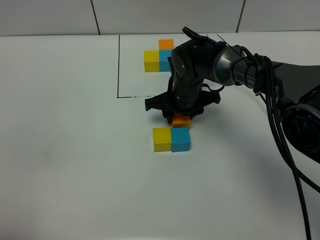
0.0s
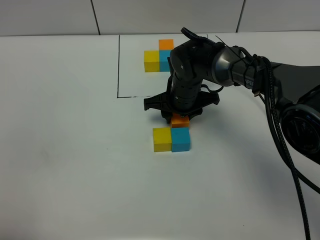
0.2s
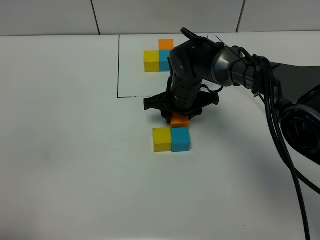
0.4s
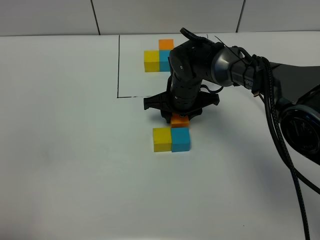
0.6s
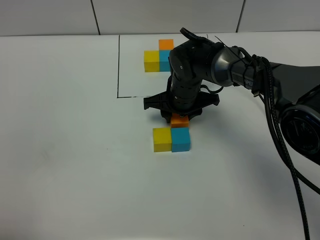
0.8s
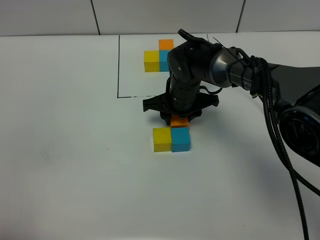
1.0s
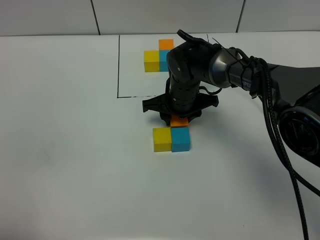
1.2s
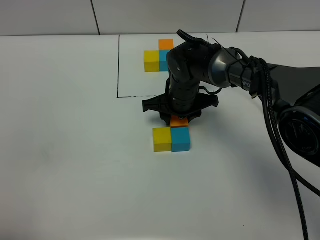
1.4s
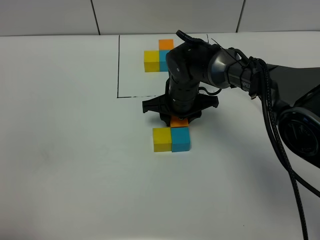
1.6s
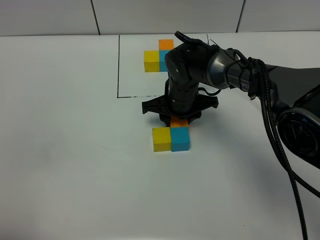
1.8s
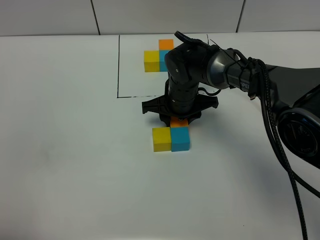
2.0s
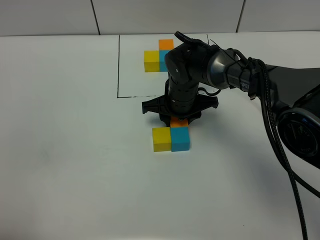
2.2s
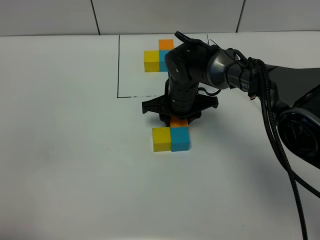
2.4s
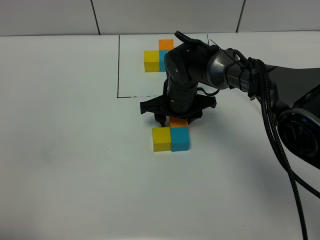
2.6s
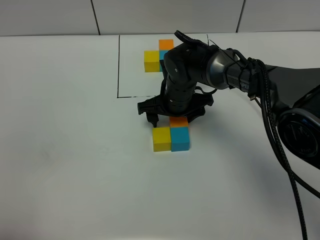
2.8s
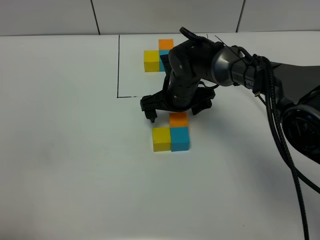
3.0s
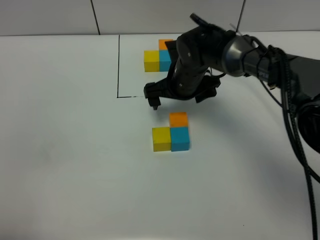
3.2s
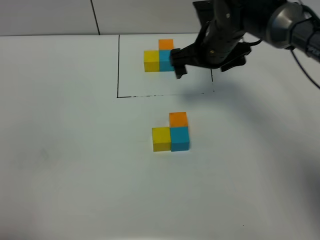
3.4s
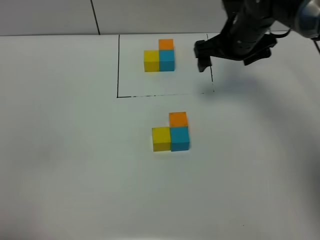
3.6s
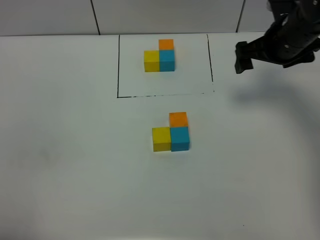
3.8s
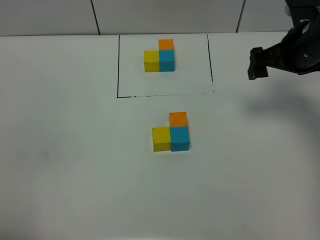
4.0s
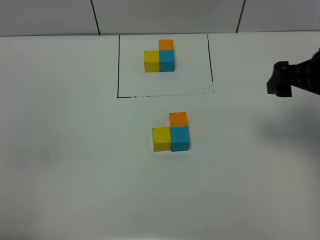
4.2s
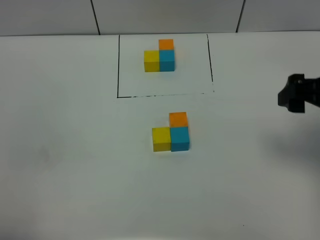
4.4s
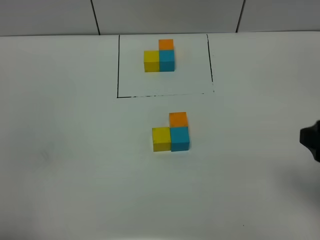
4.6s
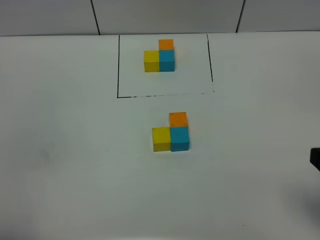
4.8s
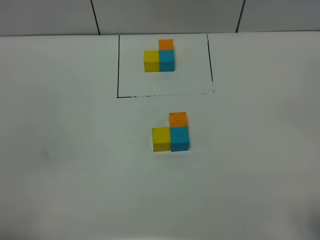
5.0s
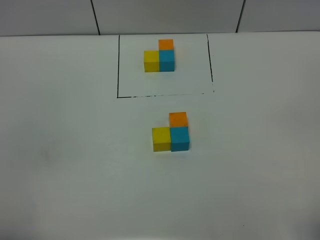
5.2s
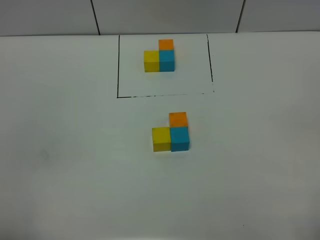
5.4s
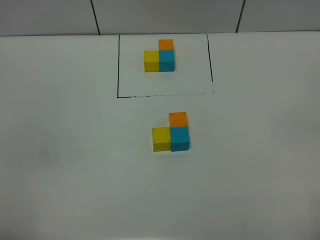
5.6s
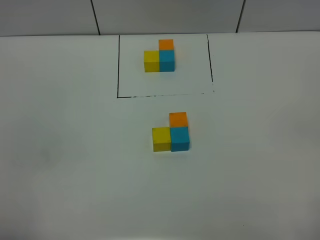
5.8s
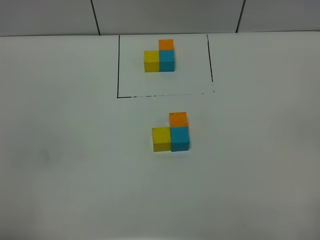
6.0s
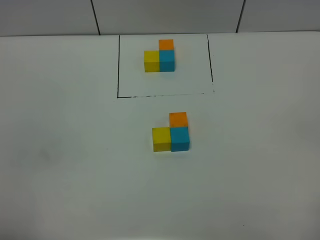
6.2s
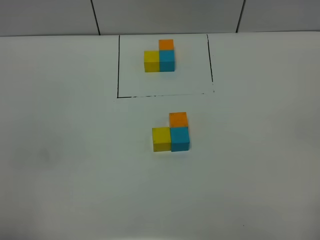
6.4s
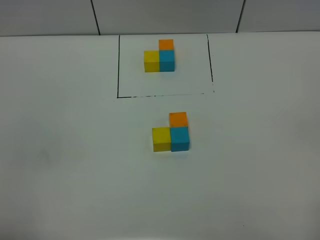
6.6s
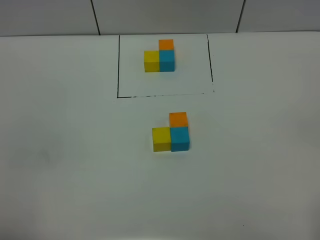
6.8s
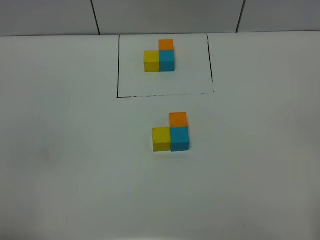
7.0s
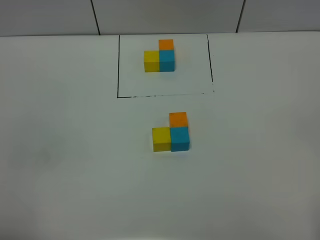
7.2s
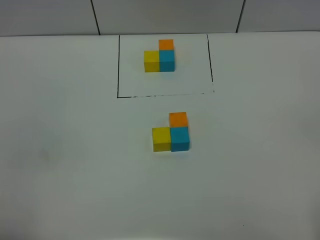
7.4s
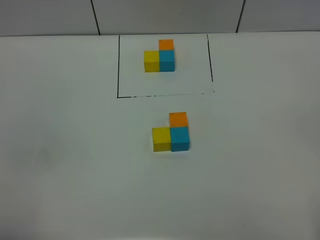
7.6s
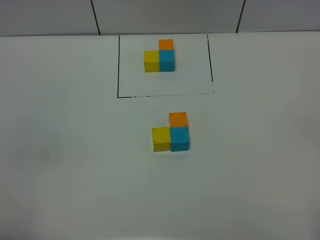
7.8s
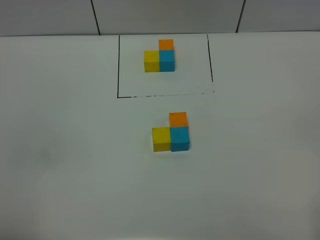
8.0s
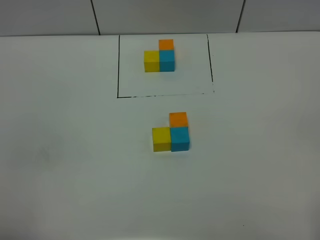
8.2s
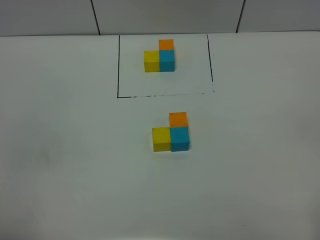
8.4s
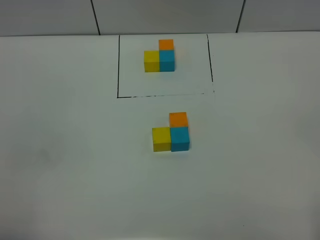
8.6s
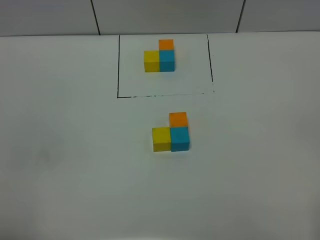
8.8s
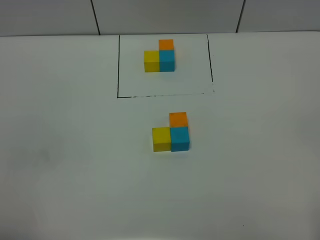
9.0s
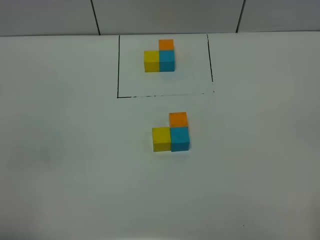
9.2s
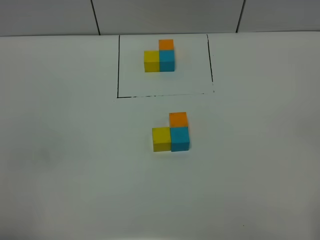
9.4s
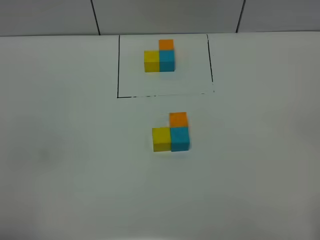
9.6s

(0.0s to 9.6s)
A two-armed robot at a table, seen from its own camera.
Task of the whole recording: According to the building block template in front, assemble the scattered blocks together.
Step, 0.0s - 2.4s: Put the orange build block on the front of the blue build block.
0.0s - 1.6s: Both grippers stay put.
1.6s - 3.2s: The right gripper moves roughly 5 cm, and opens its fingers.
3.2s - 4.8s: The right gripper moves backward and to the right, approximately 40 cm.
8.0s - 9.6s: The two grippers keep their place.

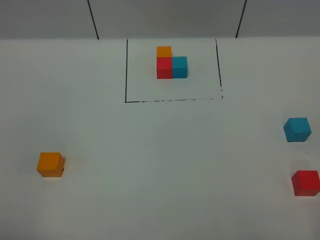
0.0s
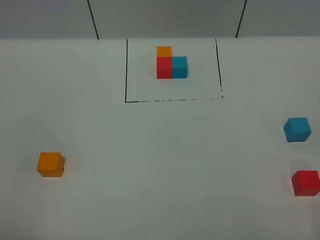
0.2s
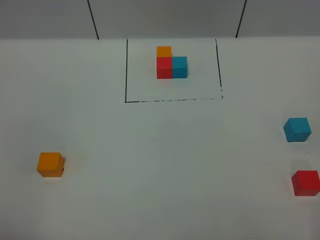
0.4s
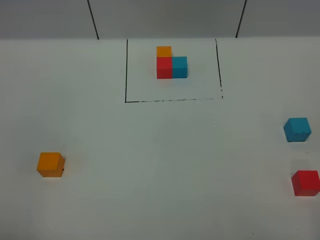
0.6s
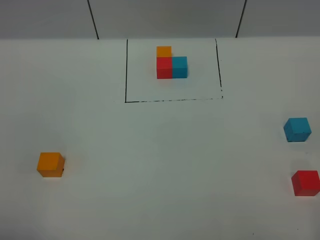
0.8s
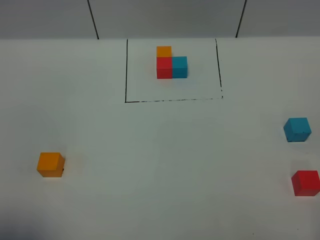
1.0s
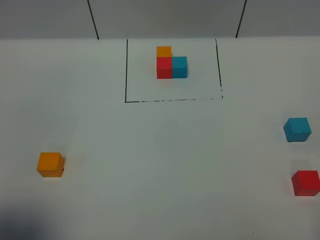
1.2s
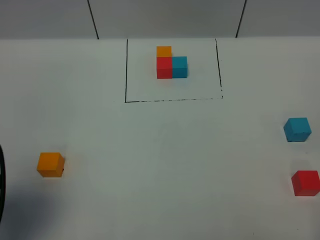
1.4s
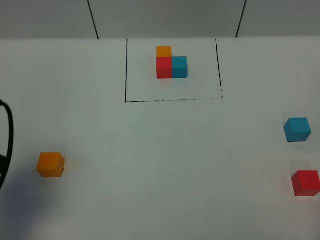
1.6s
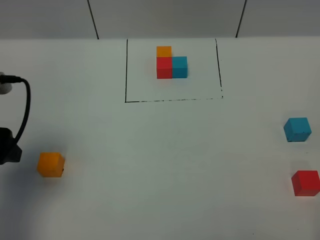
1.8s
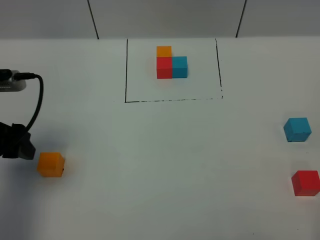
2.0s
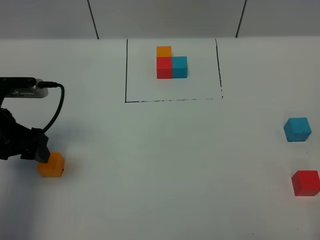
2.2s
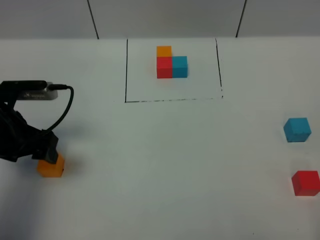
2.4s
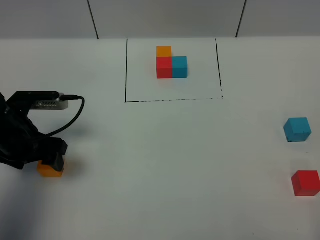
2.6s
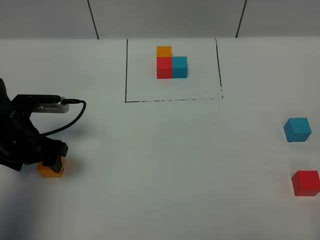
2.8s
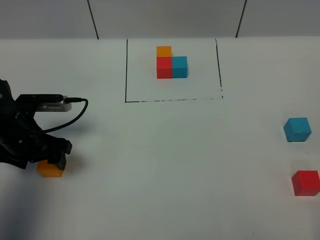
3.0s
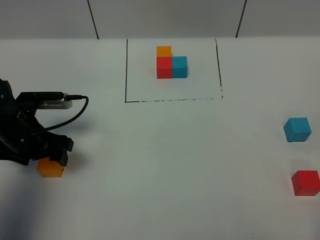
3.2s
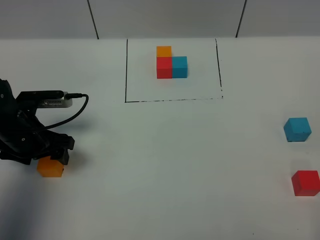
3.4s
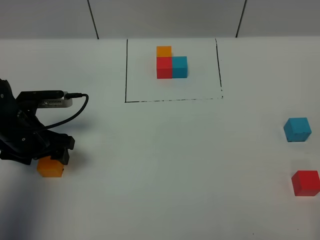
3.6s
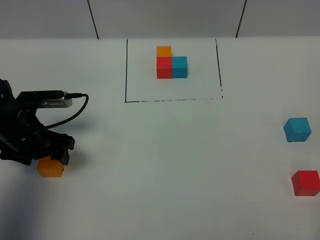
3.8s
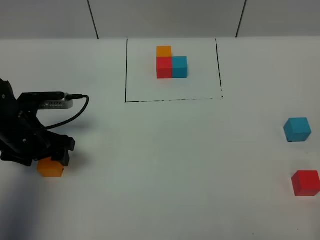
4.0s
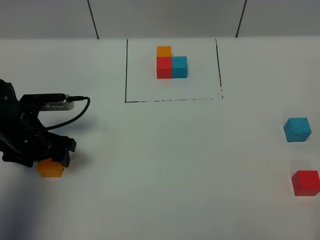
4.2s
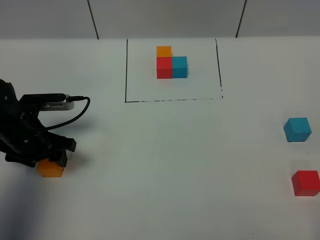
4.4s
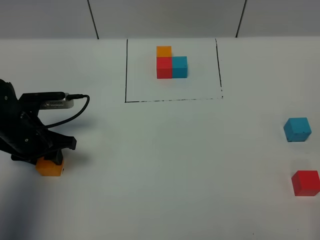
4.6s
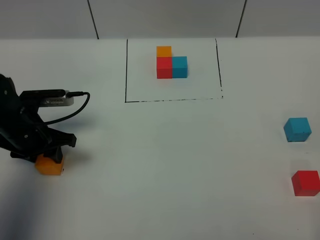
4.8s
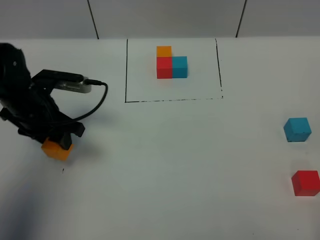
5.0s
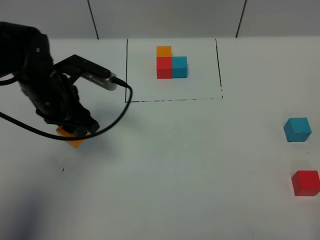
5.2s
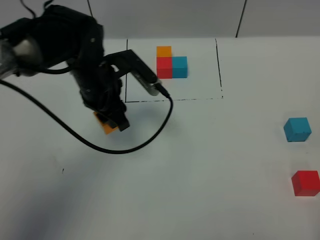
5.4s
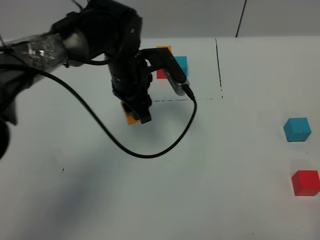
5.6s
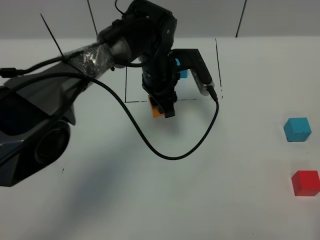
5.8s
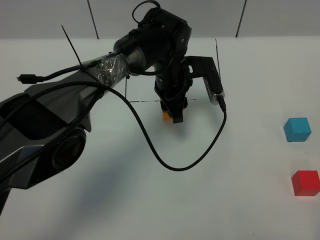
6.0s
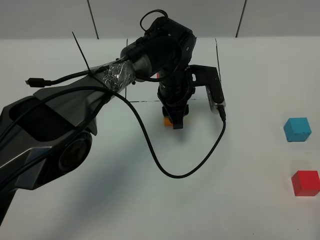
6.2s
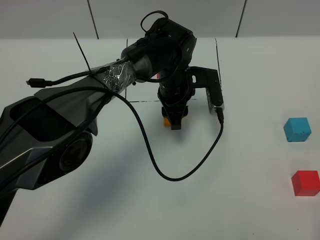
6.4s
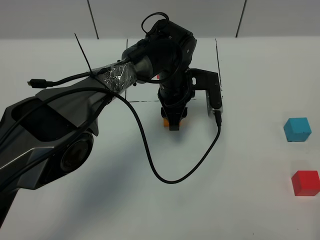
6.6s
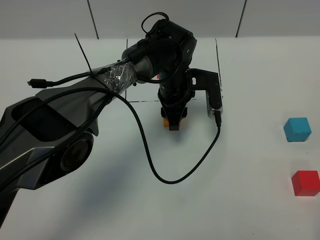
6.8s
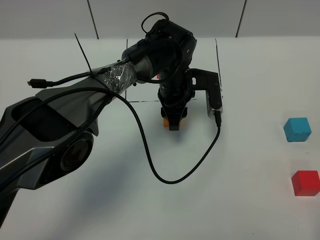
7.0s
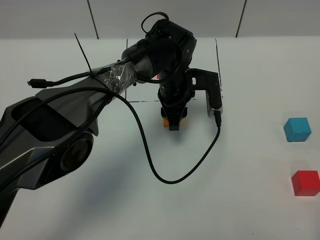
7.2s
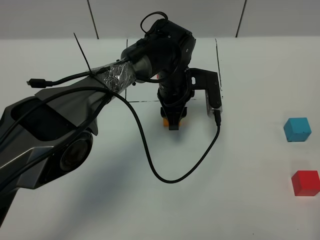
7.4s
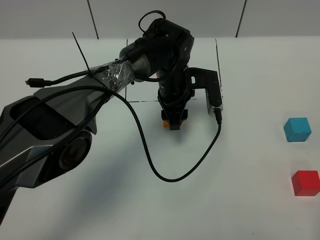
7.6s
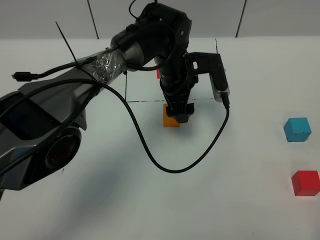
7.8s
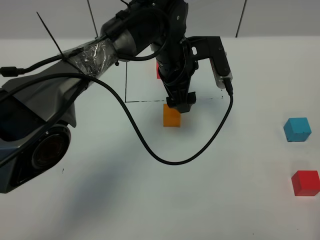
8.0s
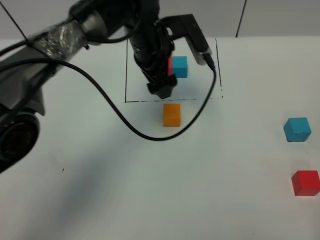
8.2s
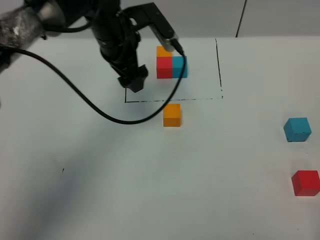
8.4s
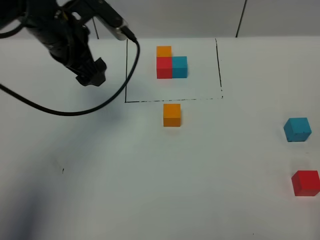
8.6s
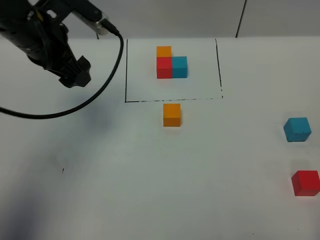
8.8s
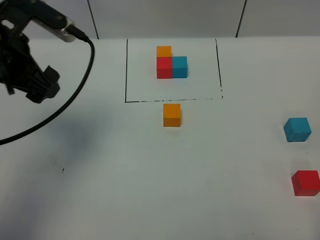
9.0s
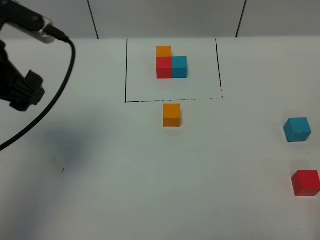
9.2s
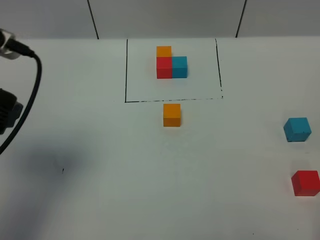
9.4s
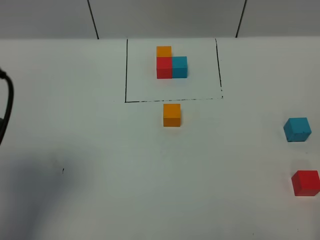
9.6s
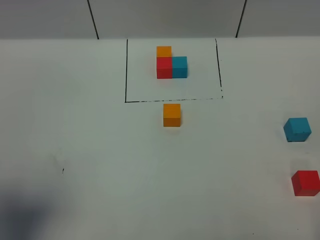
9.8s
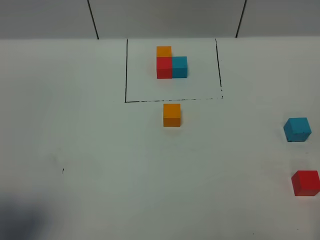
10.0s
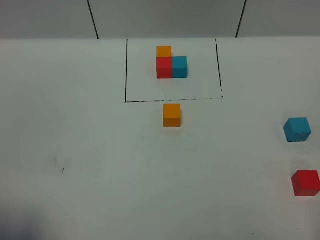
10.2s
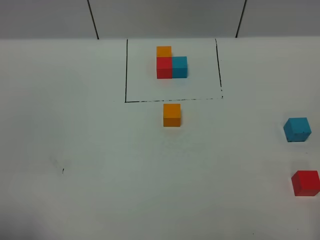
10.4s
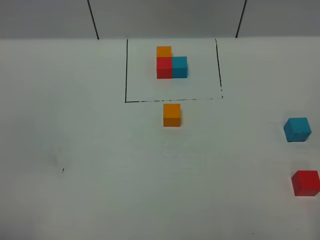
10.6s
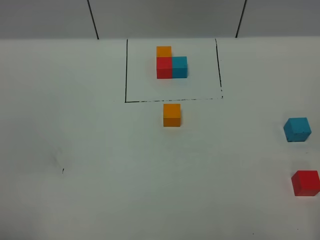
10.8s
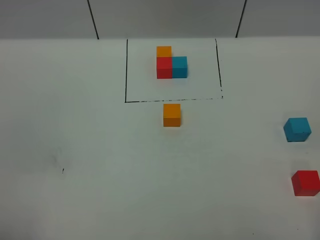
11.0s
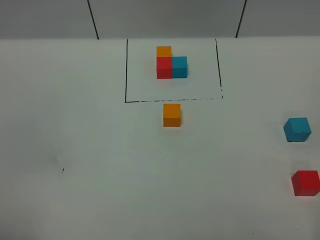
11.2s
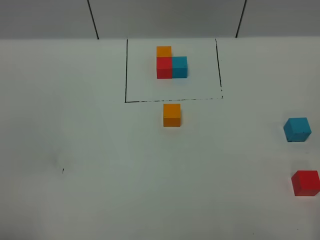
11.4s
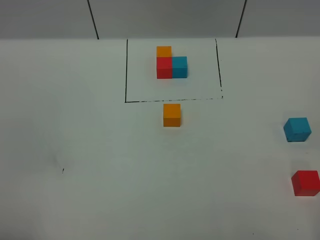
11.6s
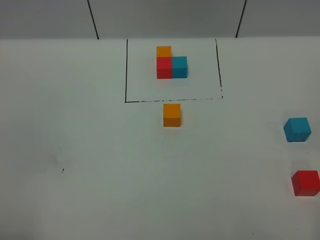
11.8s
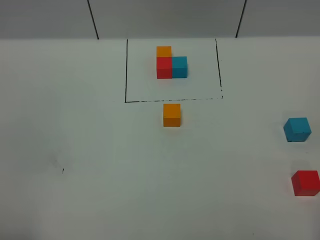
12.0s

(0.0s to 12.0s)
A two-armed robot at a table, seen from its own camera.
Task of the whole recording: According to the building block template in front, assemble the scattered blocks together.
Step, 0.0s - 7.4s: Put the orange build block in the center of the table.
0.0s - 1.6s: The left gripper travels forward by about 15 cm.
1.6s - 3.0s: The left gripper is displaced downward and forward by roughly 20 cm.
3.0s - 4.4s: The left gripper closes up.
4.4s - 6.0s: The left gripper shifts some 30 cm to the right and forward, and closes up.
6.0s - 7.6s: The left gripper opens its fingers.
7.6s - 9.0s: The left gripper goes about 35 cm to the left, upward and backward, and opens.
9.0s - 10.4s: The left gripper is displaced backward by approximately 25 cm.

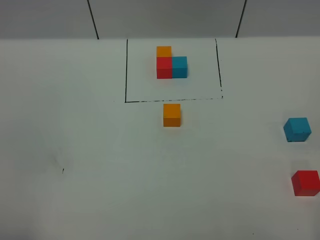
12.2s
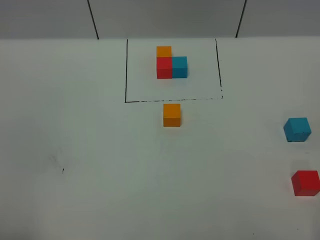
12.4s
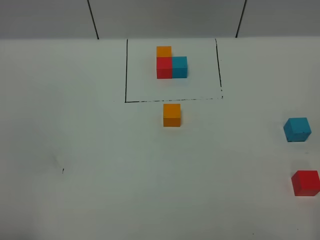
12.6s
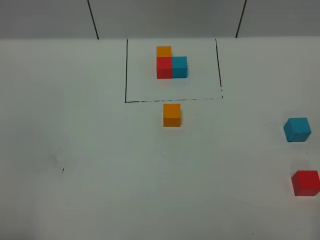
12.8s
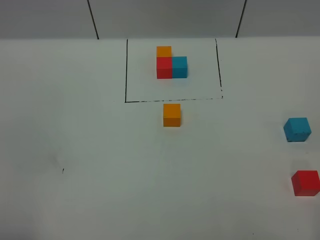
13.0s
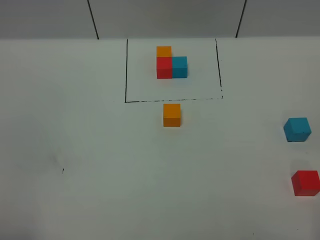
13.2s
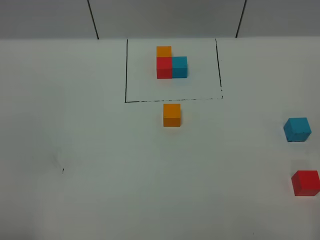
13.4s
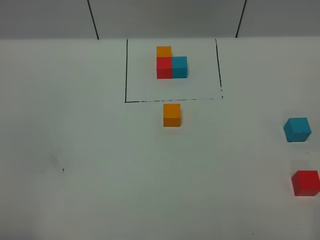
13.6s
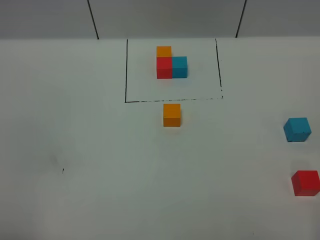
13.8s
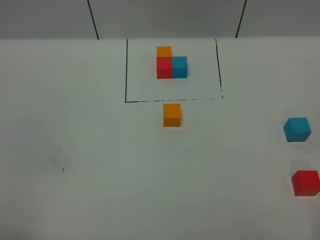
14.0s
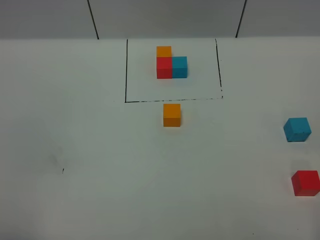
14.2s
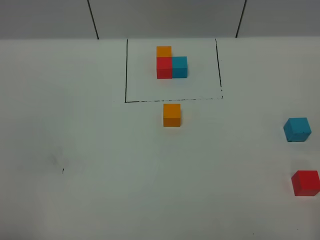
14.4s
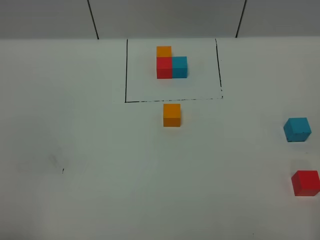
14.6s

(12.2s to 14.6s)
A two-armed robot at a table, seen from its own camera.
Task of the whole recording: According to the building block template in front, assemble the scattered blocks together.
12.2s - 13.4s: The two grippers keep their place.
